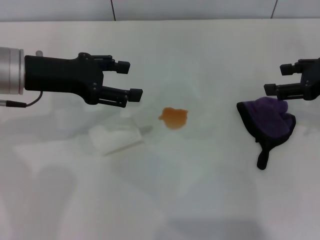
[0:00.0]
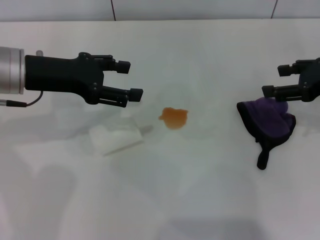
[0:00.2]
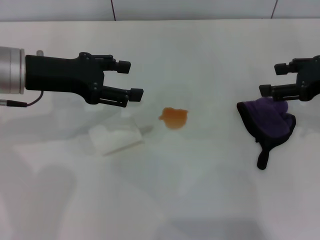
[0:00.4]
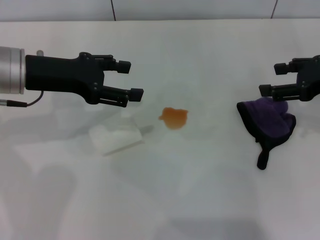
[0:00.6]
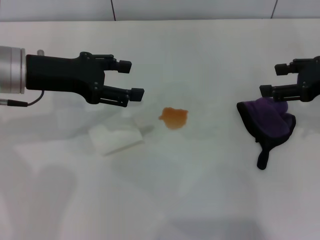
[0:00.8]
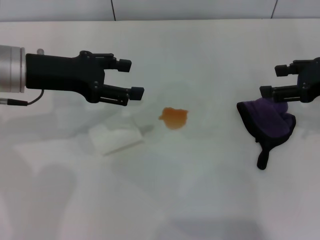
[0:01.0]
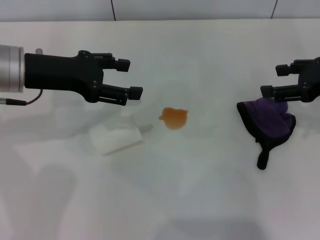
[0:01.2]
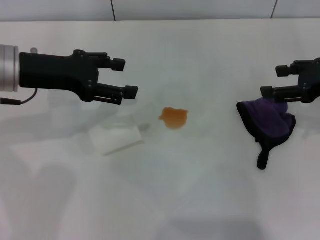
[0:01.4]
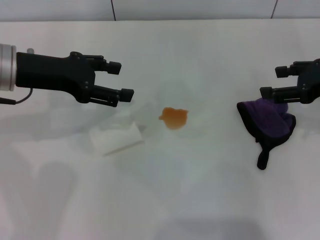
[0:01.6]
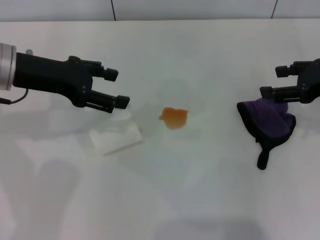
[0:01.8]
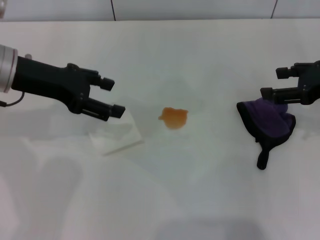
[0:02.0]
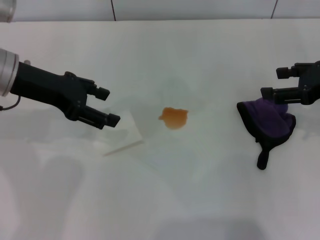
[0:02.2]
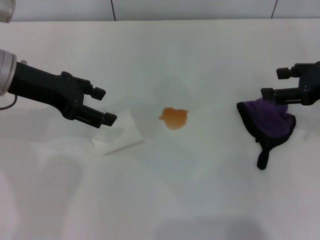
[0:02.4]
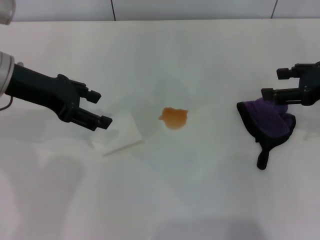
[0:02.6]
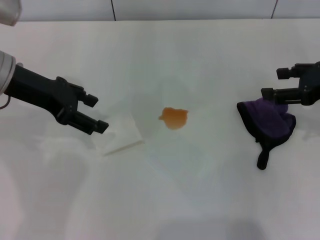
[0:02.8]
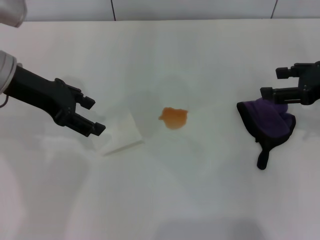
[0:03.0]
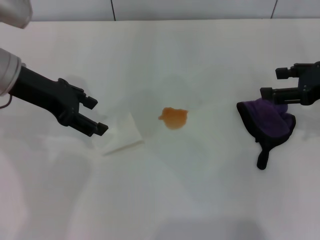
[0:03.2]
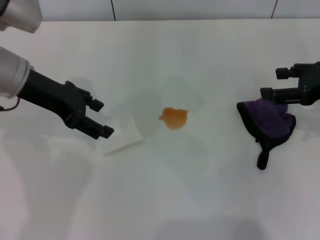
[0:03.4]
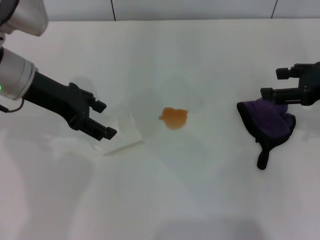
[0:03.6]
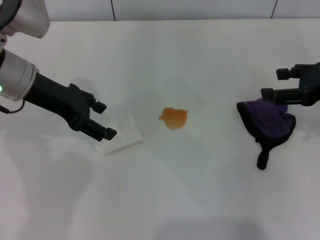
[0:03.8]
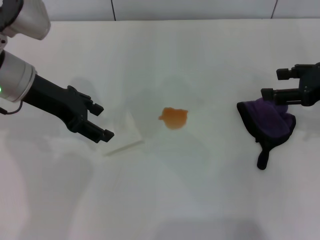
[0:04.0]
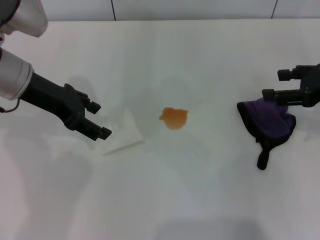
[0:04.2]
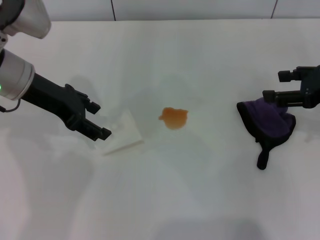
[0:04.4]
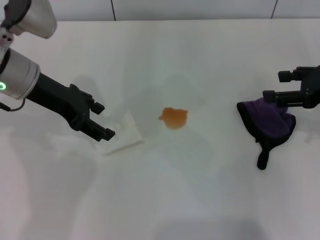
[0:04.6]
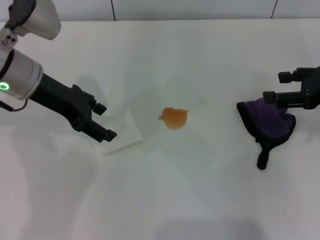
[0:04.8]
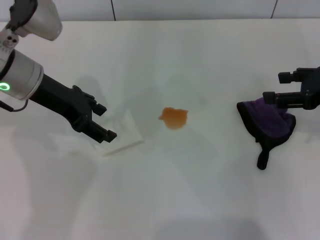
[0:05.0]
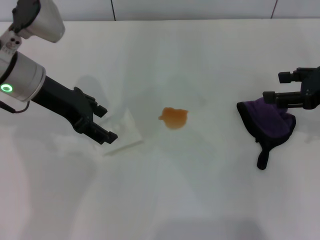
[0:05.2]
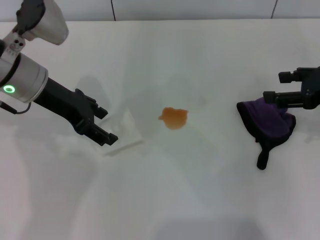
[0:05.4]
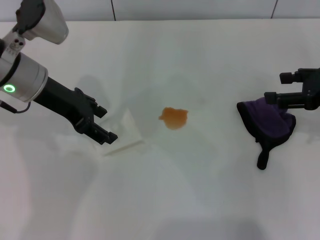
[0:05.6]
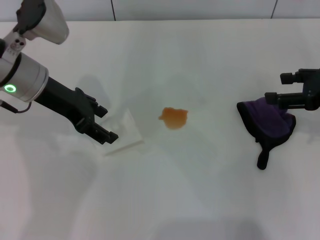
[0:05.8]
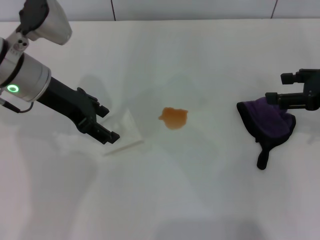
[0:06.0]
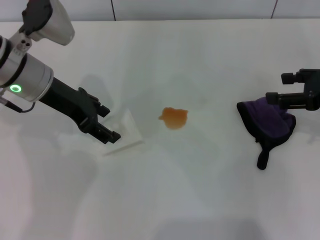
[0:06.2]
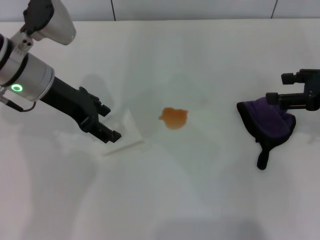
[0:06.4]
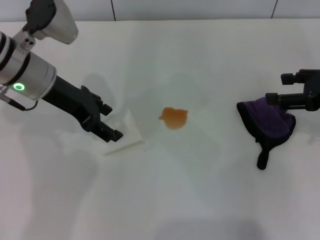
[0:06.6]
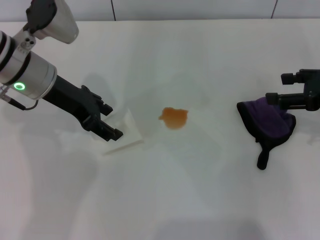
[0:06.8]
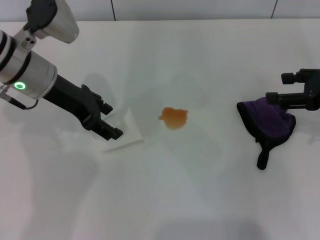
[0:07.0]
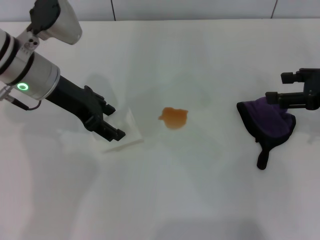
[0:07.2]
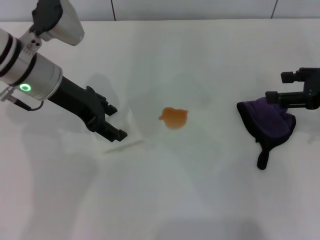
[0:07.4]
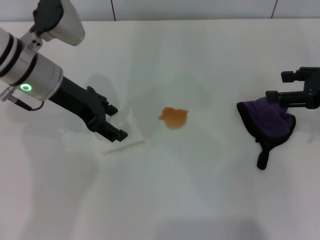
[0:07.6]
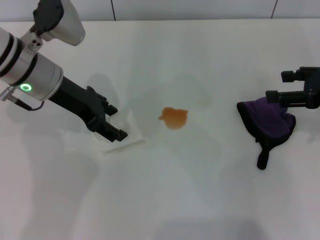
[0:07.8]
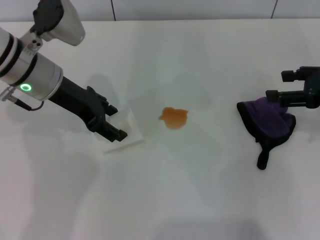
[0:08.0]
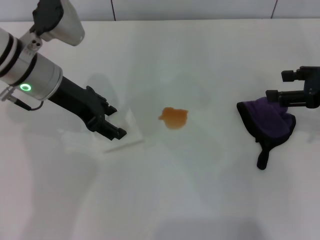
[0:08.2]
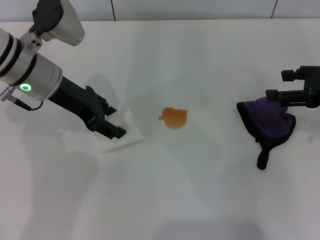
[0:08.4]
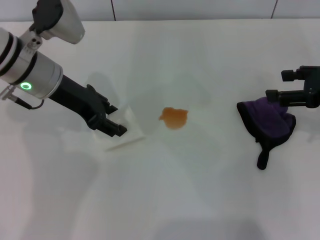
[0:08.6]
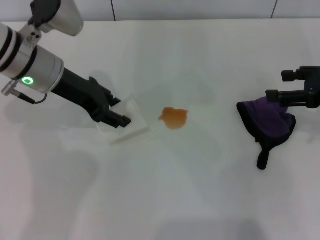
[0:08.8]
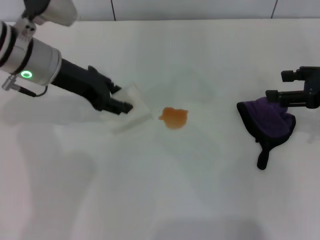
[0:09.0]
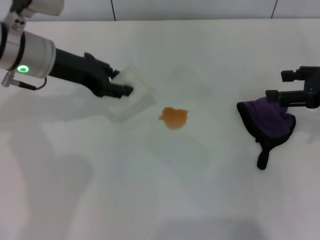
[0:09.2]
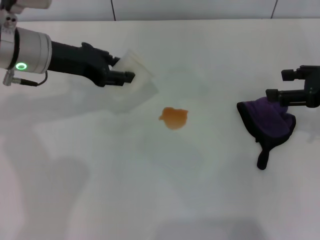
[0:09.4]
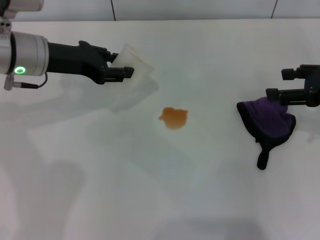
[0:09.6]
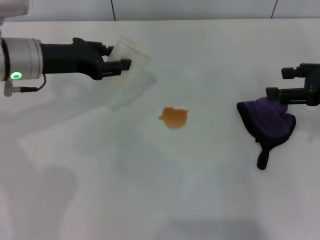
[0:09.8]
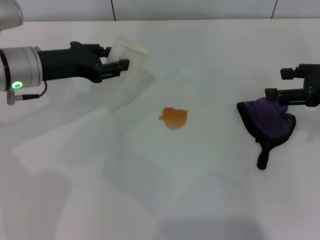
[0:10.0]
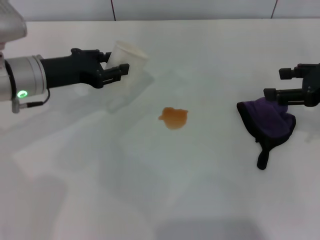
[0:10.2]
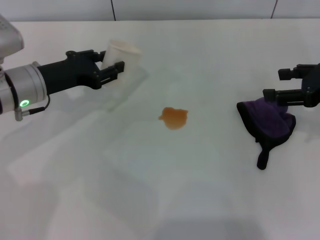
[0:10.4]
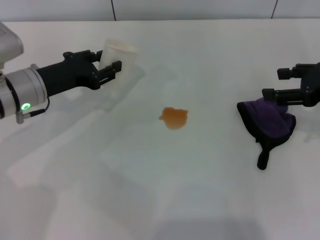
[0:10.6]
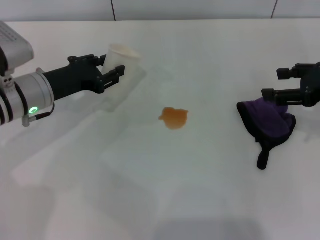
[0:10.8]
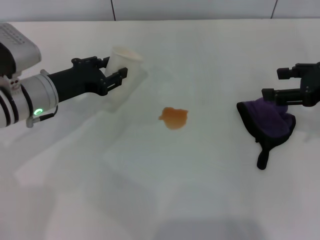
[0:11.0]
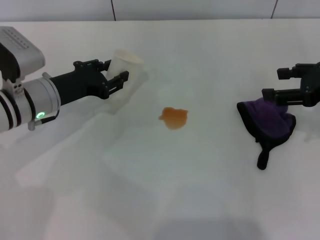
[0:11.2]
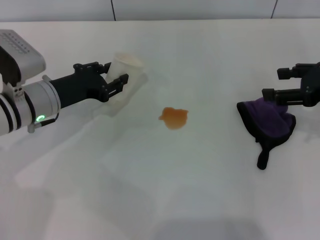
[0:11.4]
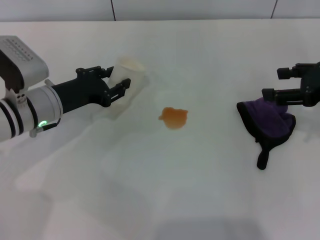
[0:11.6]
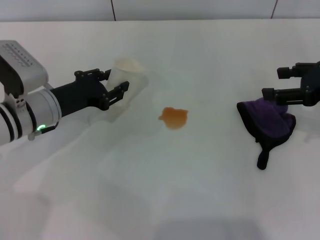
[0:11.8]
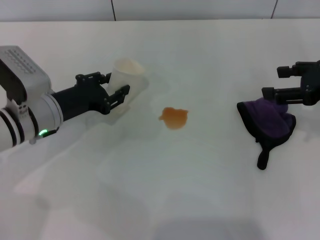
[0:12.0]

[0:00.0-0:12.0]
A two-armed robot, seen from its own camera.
Step, 0:00.0 to 0:08.4: Grasp the paper cup with the left gripper.
0:00.0 to 0:01.6: The two grippers keep their place.
0:03.0 to 0:07.6: The grippers stay close to where they were, moving slightly.
0:07.6 to 0:09.0: The left gripper closes.
0:09.0 to 0:10.4: The left gripper is displaced downward by about 5 cm.
0:10.4 to 0:12.0: The left gripper ends up some 5 cm from where it was.

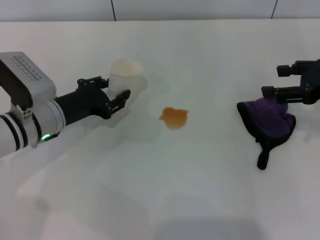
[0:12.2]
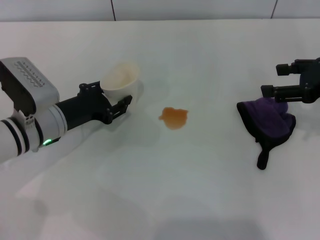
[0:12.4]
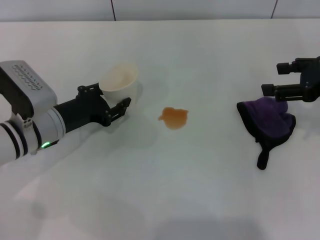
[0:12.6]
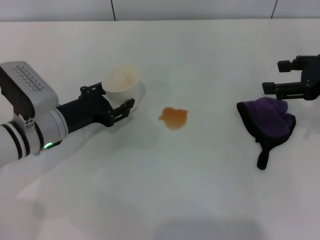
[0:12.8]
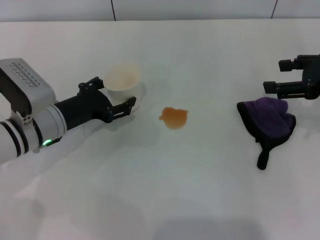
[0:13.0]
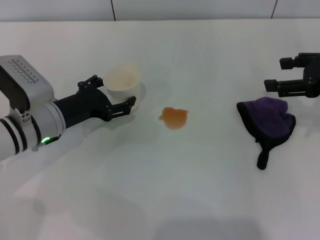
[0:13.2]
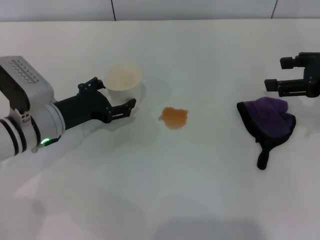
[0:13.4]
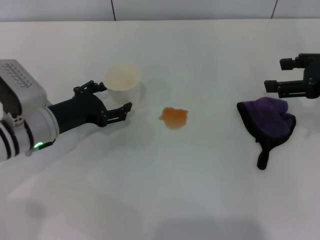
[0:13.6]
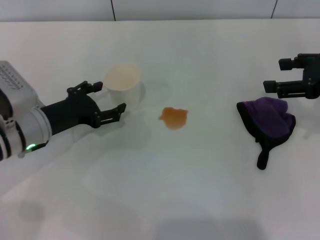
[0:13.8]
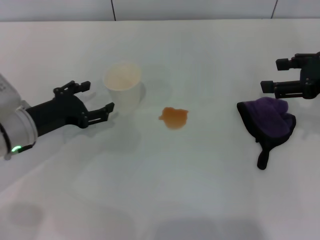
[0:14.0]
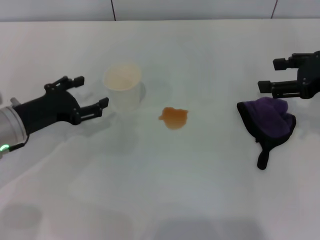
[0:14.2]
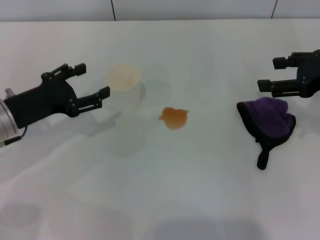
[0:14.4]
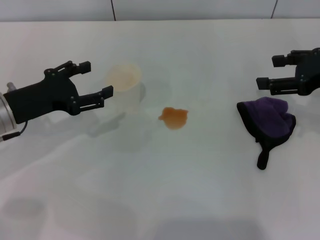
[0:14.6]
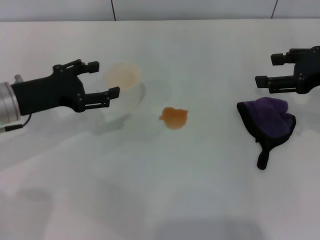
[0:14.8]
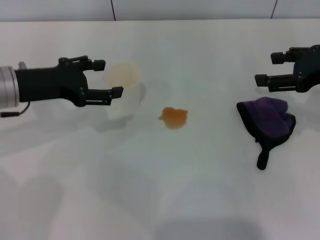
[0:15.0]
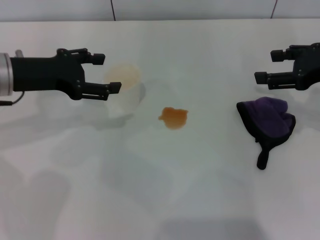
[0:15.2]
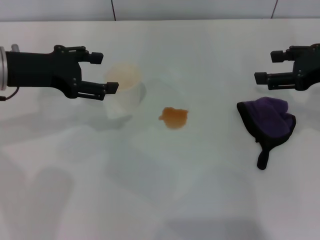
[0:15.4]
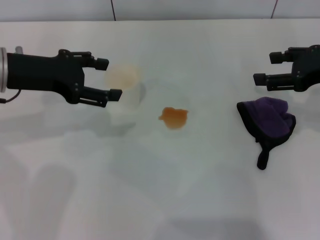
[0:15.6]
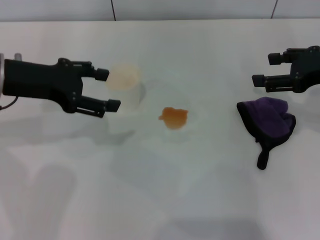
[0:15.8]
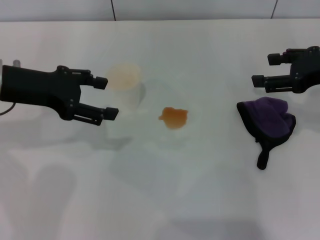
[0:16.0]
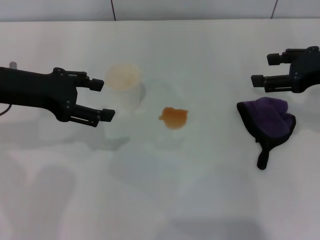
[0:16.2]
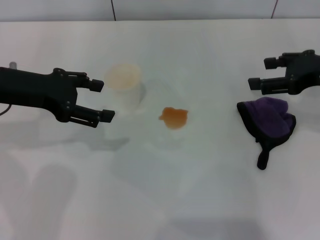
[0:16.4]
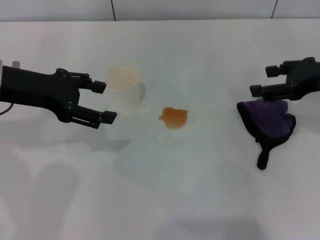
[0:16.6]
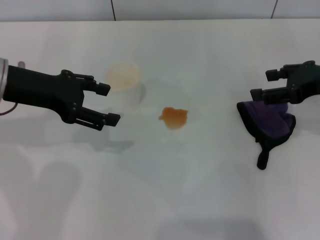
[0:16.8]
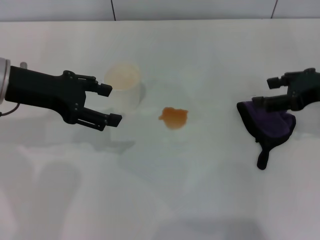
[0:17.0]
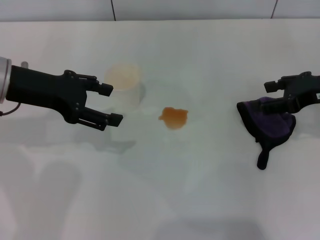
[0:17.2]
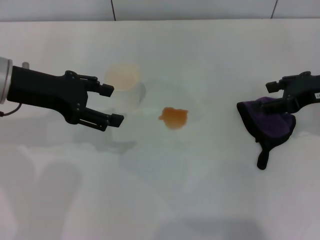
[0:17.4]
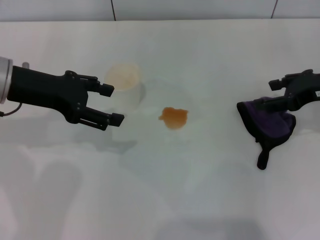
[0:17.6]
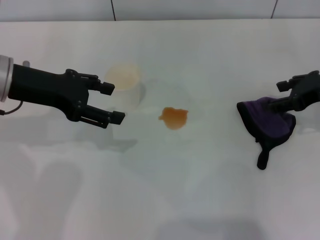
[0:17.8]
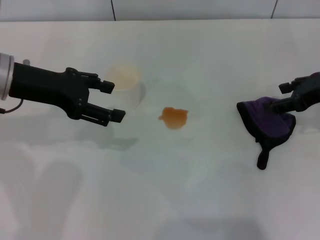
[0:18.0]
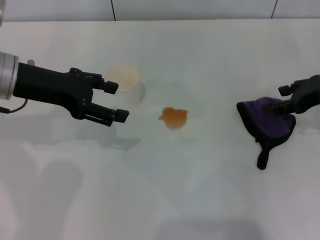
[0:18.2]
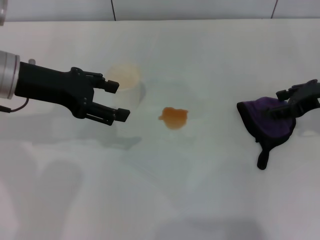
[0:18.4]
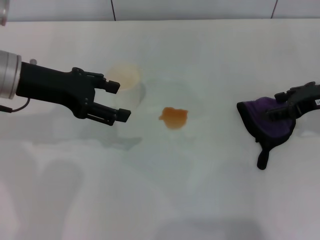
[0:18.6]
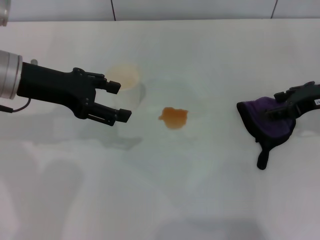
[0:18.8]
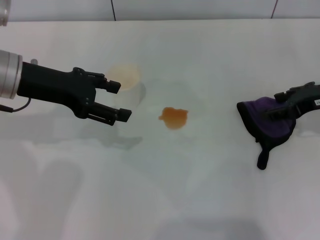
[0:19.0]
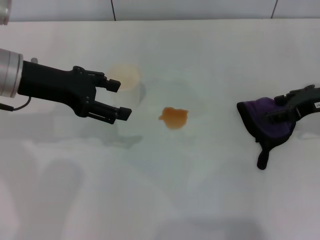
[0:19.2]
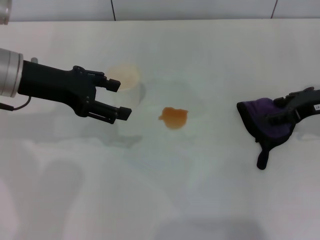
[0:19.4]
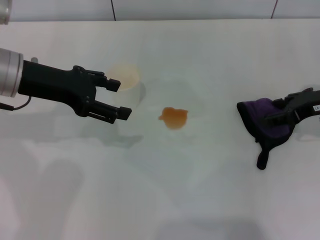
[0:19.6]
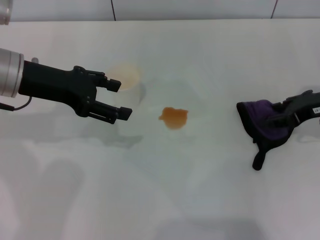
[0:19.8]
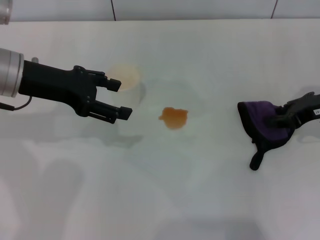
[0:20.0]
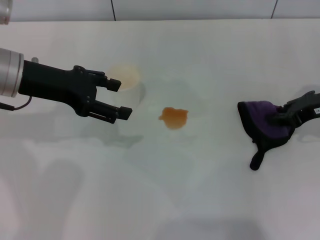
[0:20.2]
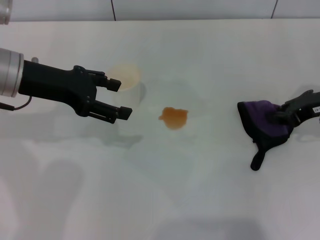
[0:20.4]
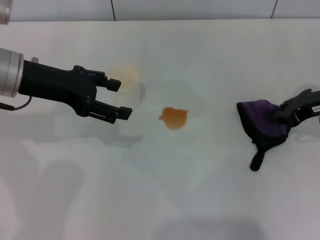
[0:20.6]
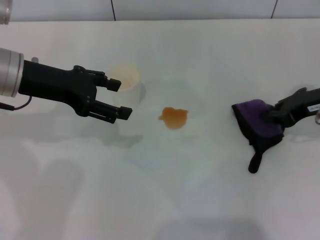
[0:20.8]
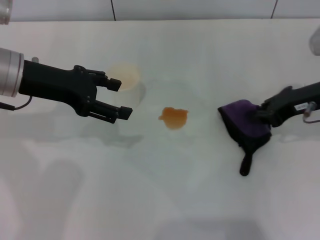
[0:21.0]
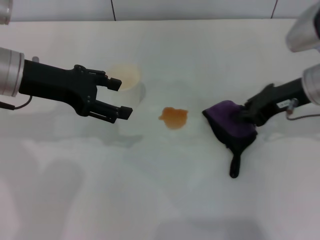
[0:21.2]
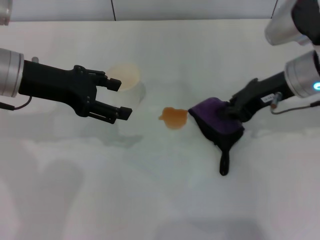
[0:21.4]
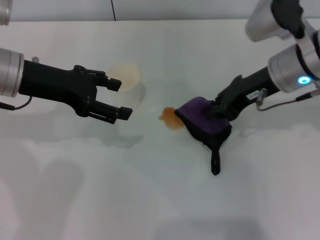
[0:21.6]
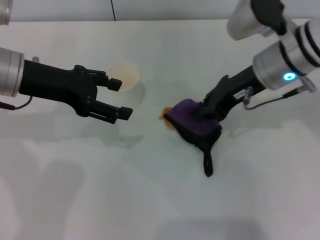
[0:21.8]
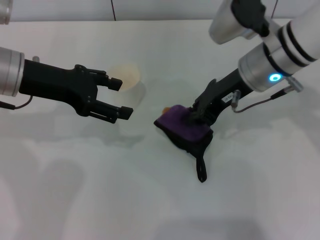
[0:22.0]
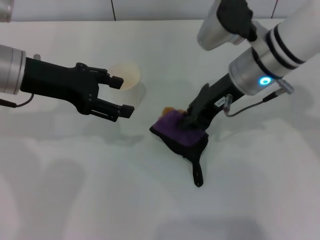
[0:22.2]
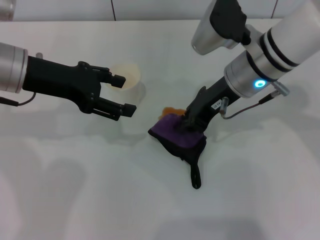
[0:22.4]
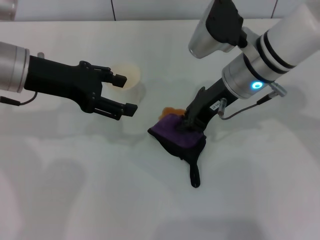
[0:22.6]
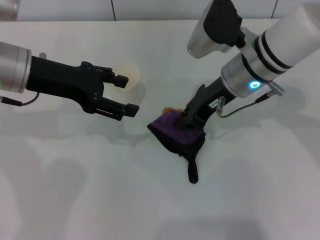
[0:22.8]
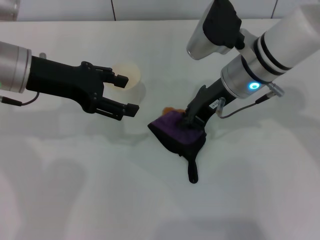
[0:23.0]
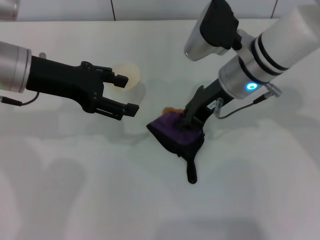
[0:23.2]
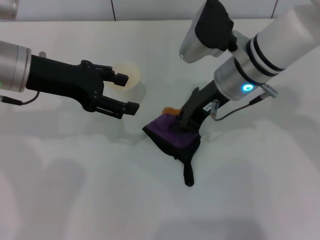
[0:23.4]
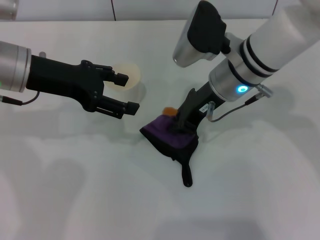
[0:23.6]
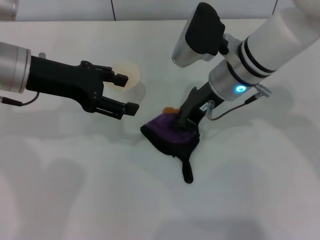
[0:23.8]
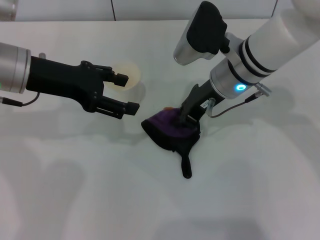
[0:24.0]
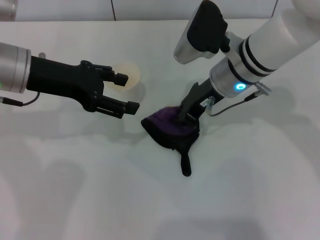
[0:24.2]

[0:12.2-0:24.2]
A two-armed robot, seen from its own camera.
Step, 0:12.2 to 0:15.0: Stand the paper cup upright with the left gripper.
Step, 0:15.2 to 0:20.2: Grasp the rag with the right gripper.
0:12.2 to 0:13.8: The left gripper opens.
0:13.8 to 0:15.2: The left gripper shifts some 10 cm upward.
0:15.2 to 0:18.2: The grippers make only small movements.
0:18.2 to 0:19.8: The grippers stay close to where they were, moving slightly.
0:19.8 to 0:21.2: The right gripper shifts approximately 5 cm to the left, and closes its fingers.
0:21.2 to 0:22.6: The right gripper travels to the left by about 10 cm.
0:22.6 to 0:24.2: The grippers move only a little.
